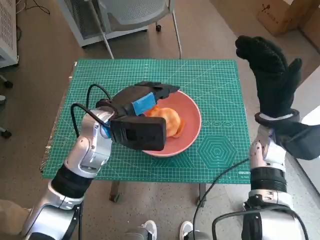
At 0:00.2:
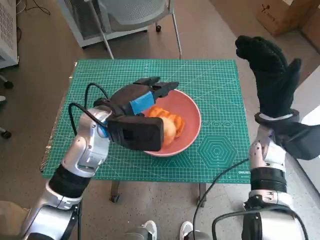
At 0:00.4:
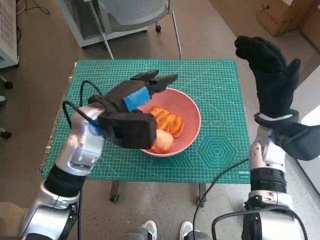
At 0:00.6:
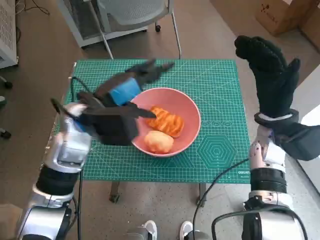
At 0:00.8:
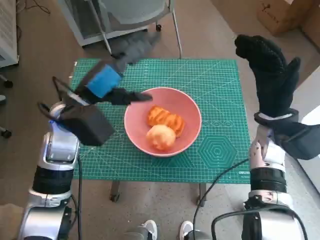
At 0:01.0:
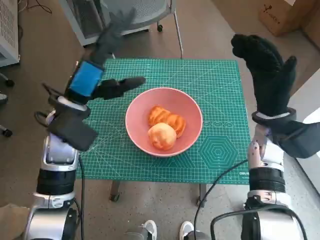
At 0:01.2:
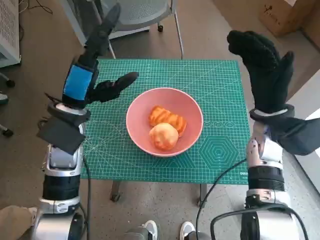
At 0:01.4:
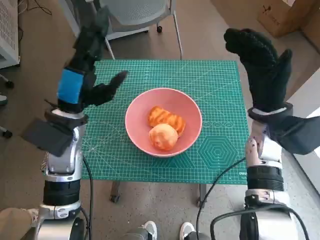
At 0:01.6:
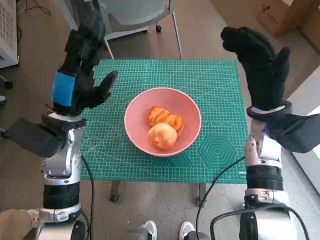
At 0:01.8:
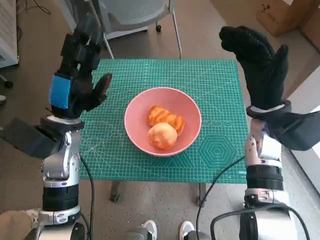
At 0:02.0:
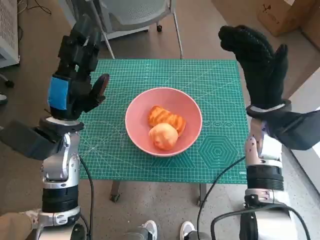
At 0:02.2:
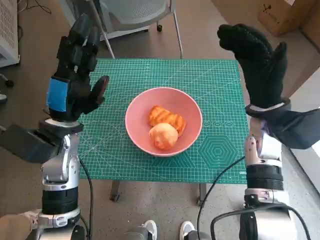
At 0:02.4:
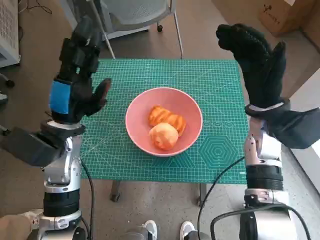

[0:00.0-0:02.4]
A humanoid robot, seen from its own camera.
0:00.0 to 0:01.2: The left hand goes some 5 cm to the left.
